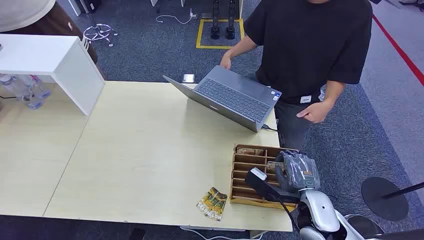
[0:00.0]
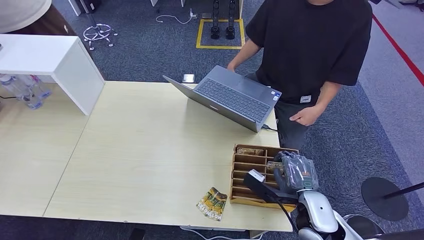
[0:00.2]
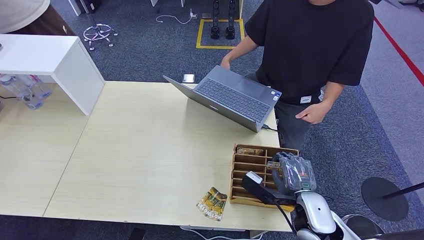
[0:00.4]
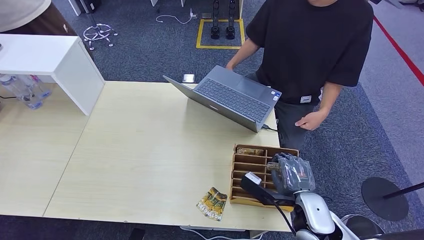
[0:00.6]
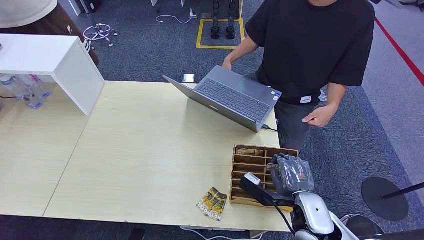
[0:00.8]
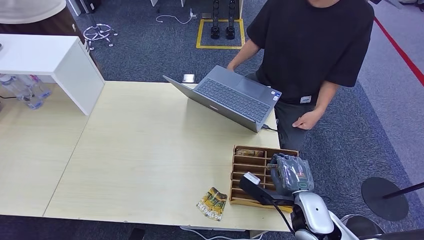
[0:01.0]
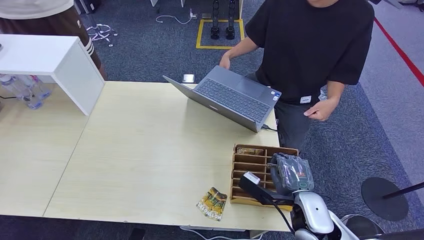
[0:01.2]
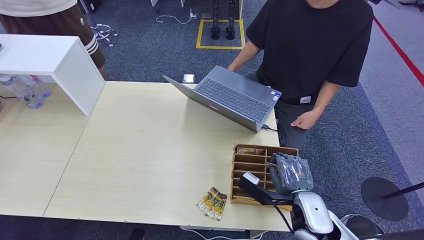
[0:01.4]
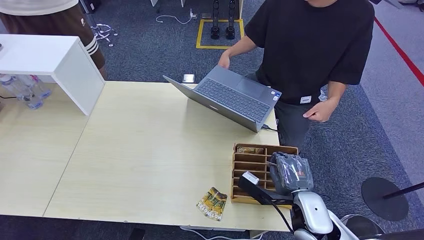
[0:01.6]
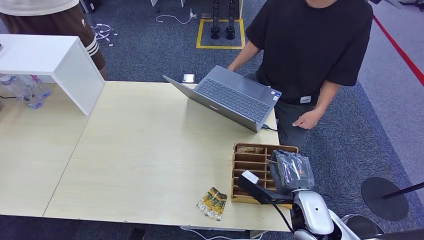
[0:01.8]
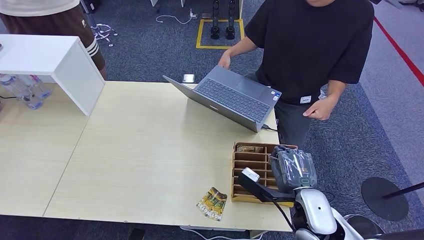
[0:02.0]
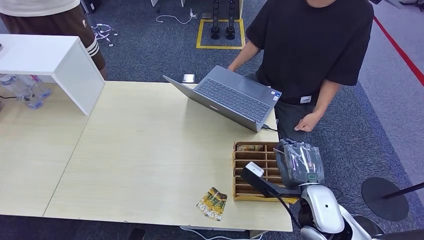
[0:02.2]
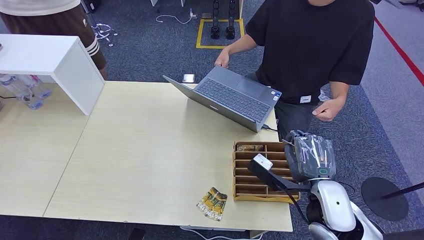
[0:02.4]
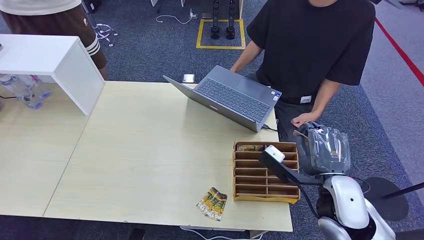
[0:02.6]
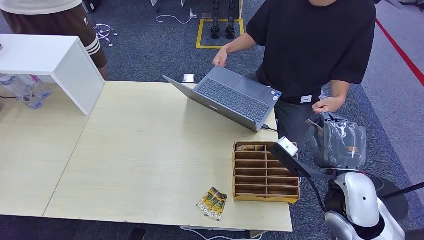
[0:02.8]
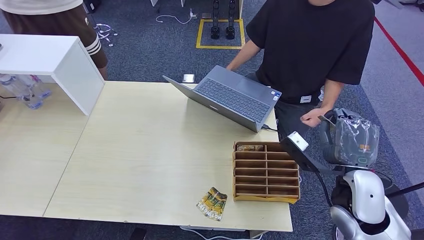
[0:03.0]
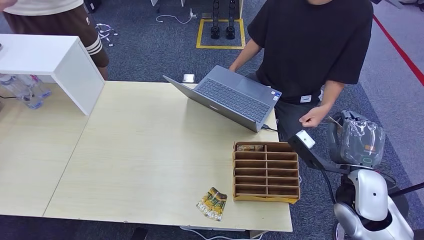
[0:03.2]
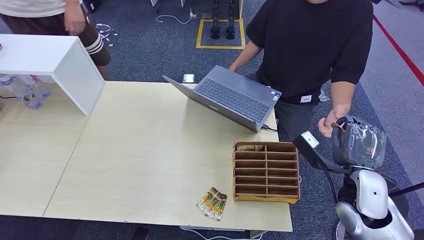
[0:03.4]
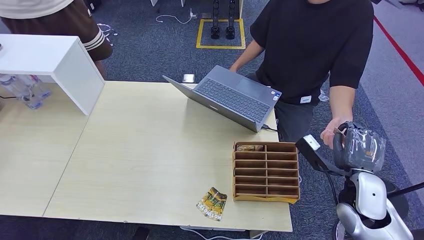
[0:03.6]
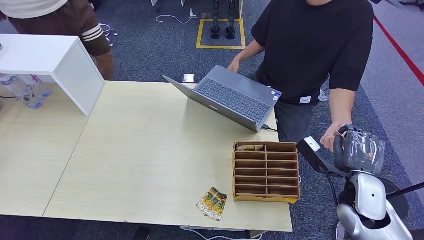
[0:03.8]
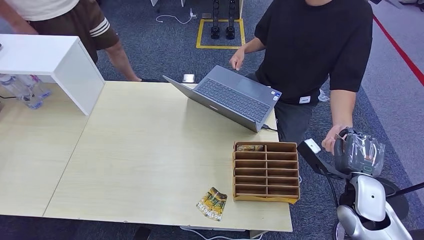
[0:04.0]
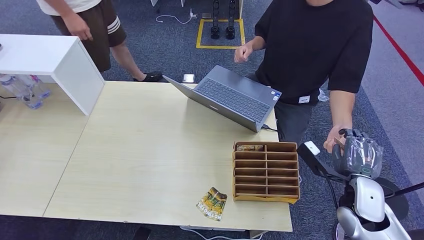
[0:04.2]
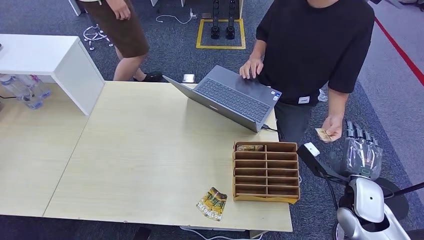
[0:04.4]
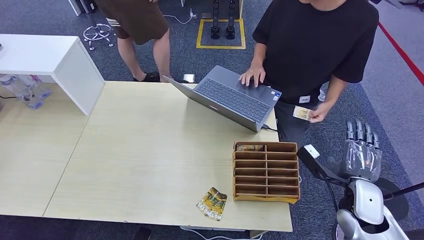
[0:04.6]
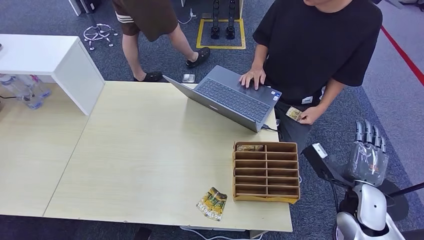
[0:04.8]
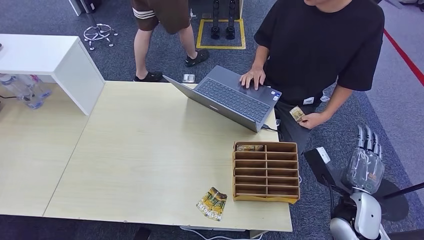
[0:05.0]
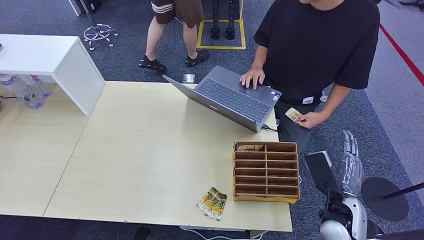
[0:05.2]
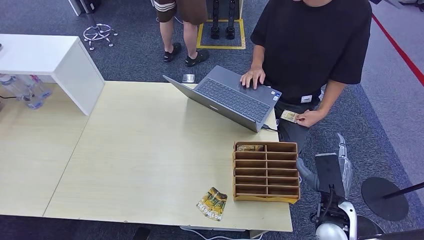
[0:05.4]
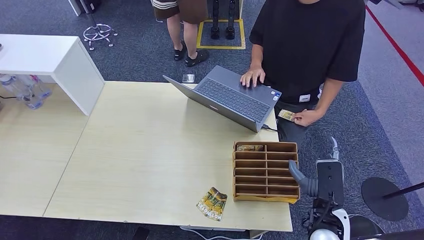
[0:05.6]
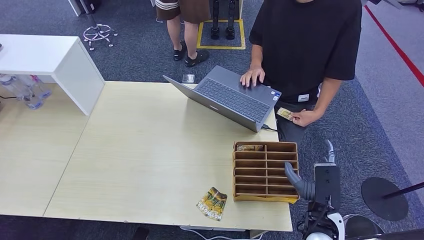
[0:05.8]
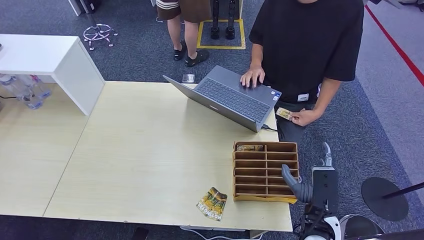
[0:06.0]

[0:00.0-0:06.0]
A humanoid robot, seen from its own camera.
Step, 0:00.0 to 0:02.2: Pick up the room card from the card holder.
Step, 0:02.6 to 0:06.0: Hand the room card to the target.
0:01.6 to 0:03.0: The right hand moves upward and to the right, approximately 10 cm.
0:03.0 to 0:04.4: The right hand goes roughly 10 cm downward and to the right.
0:04.4 to 0:06.0: The right hand goes approximately 10 cm to the left and backward.

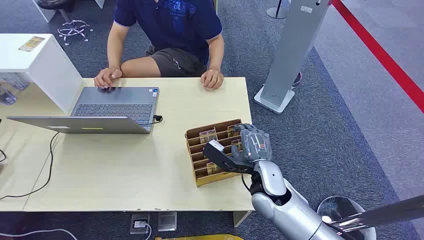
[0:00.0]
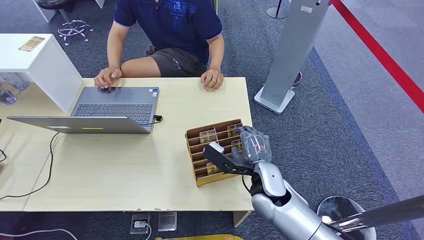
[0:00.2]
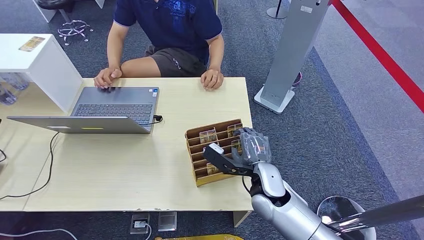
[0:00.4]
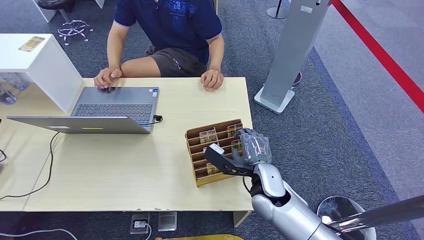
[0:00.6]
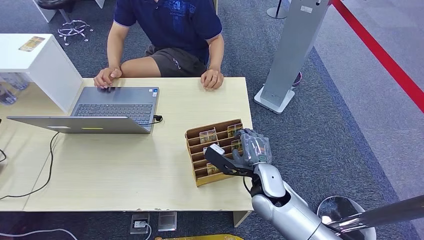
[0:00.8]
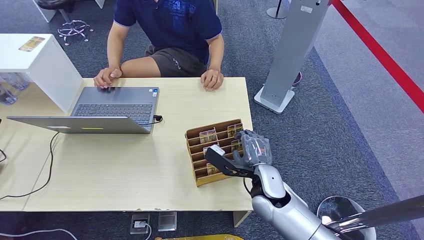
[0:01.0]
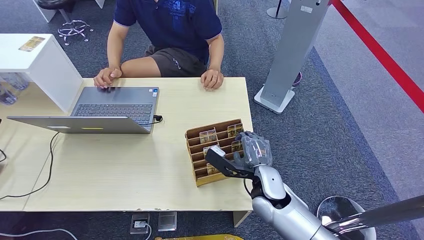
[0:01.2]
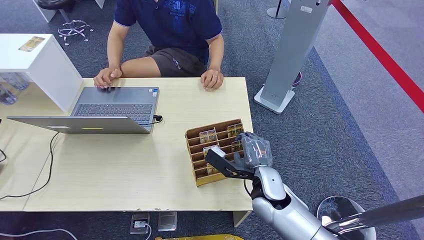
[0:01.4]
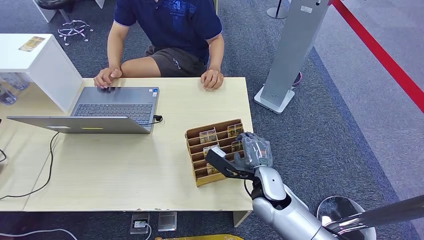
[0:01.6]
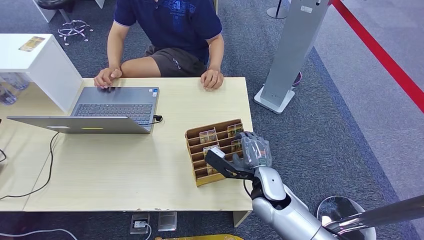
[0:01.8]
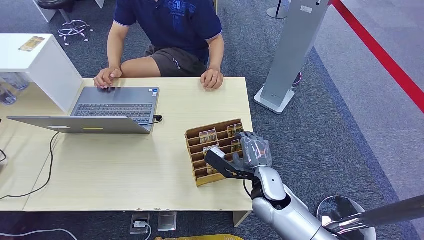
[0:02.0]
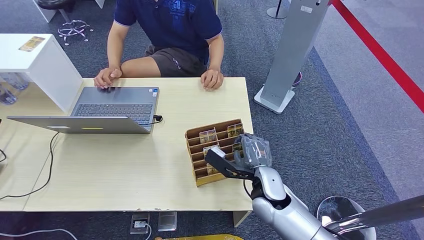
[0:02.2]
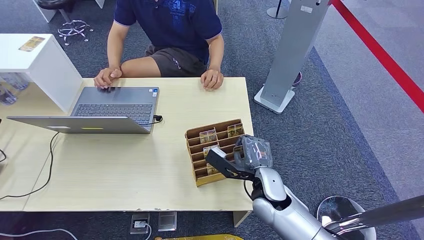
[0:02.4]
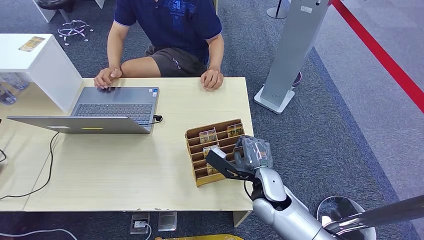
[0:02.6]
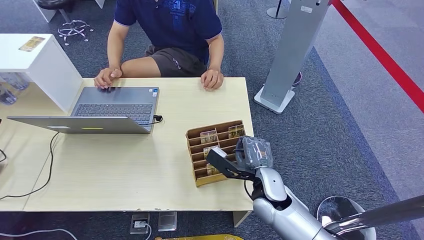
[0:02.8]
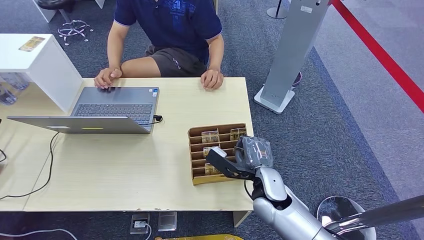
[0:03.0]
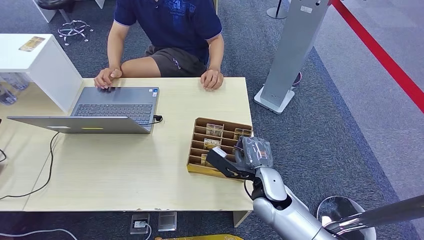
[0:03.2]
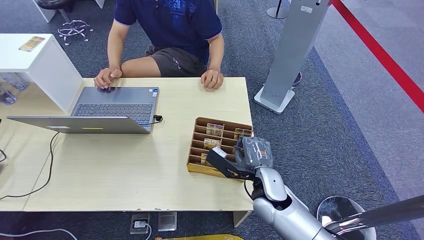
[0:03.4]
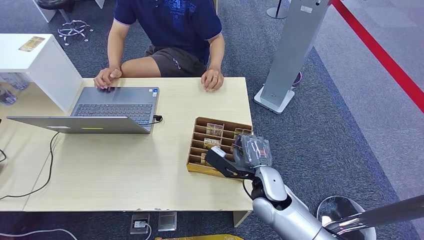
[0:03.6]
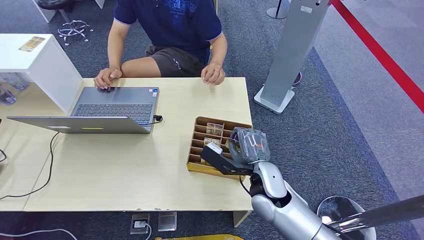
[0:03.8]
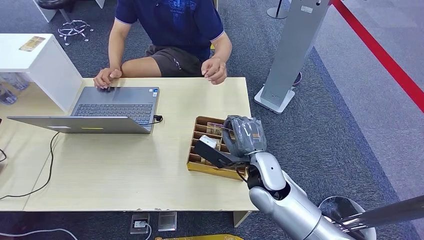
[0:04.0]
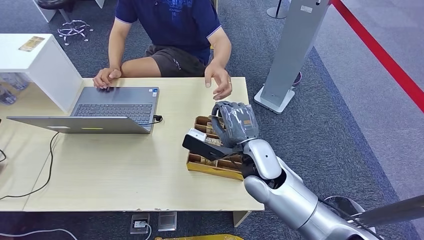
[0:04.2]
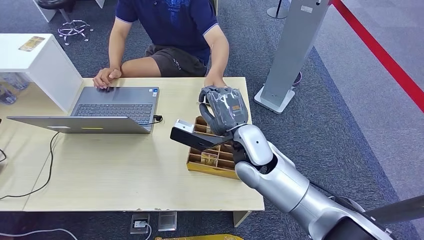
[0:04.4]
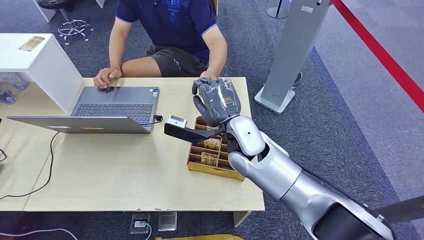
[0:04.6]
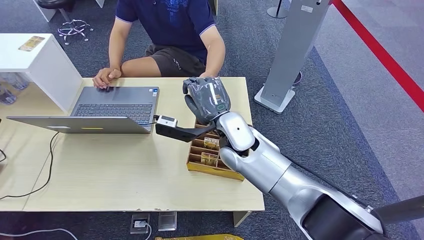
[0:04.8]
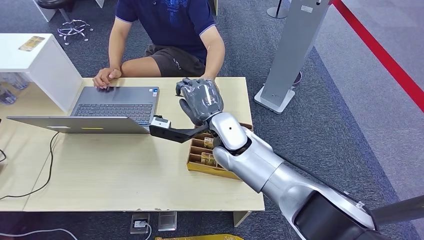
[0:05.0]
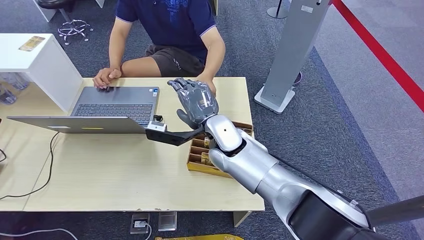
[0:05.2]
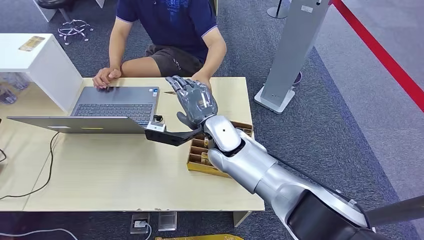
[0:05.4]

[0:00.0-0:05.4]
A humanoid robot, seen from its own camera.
Step, 0:00.0 to 0:03.8: Pick up the room card from the card holder.
Step, 0:04.2 to 0:05.2: Hand the room card to the target.
0:01.4 to 0:02.8: The two hands keep their place.
0:02.8 to 0:04.0: The right hand travels upward by roughly 5 cm.
0:04.0 to 0:05.4: The right hand goes about 15 cm to the left and forward.

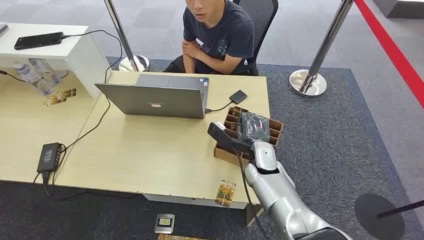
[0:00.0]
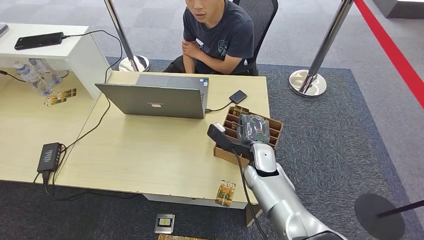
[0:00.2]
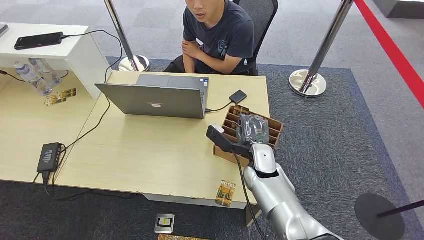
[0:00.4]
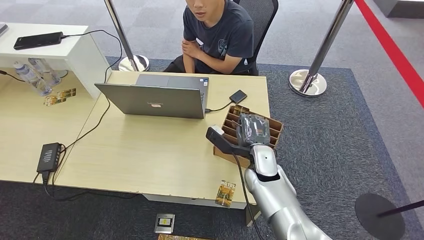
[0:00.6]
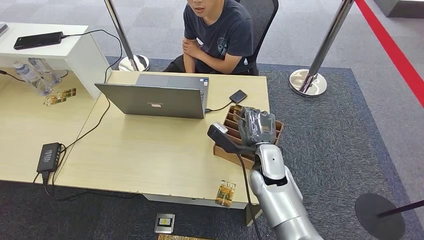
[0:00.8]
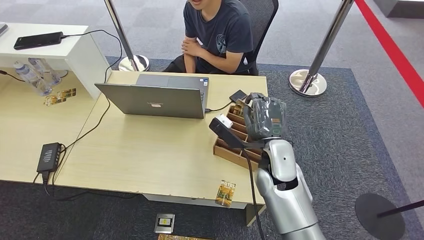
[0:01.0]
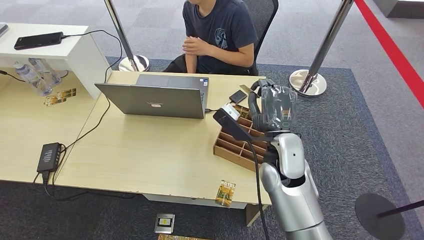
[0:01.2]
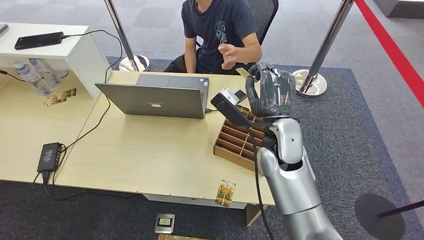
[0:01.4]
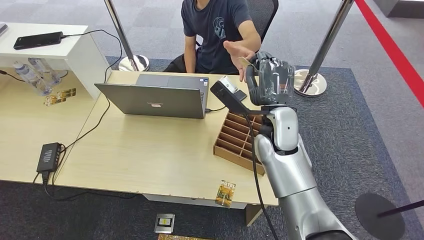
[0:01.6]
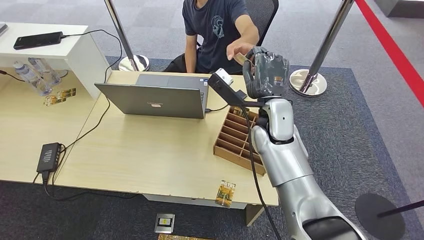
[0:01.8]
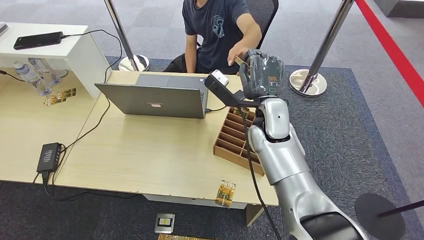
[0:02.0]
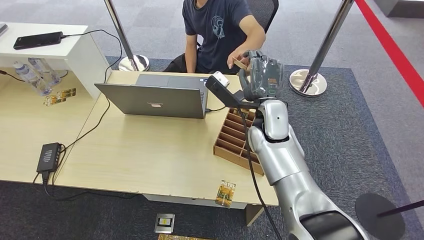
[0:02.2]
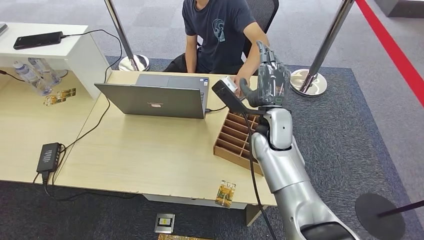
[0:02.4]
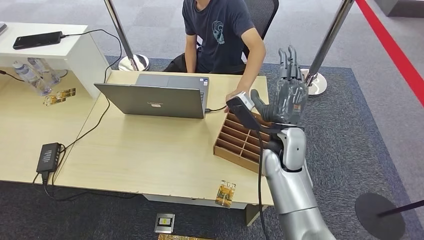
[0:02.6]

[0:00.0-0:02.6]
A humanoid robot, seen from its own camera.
Step, 0:00.0 to 0:01.2: Pick up the room card from the card holder.
Step, 0:01.4 to 0:02.6: Hand the room card to the target.
